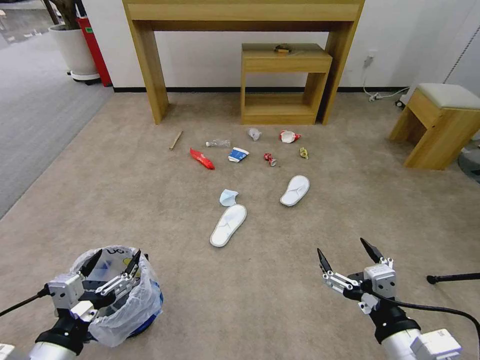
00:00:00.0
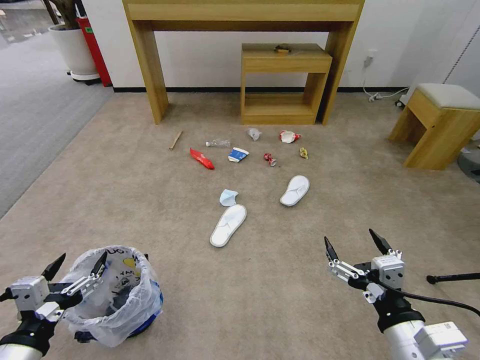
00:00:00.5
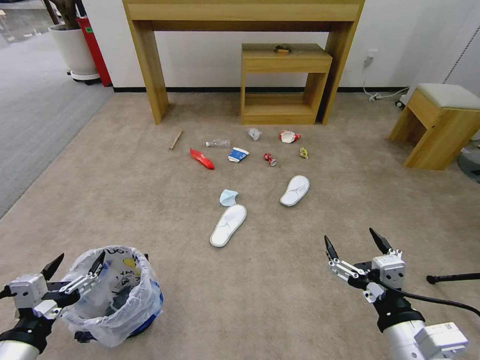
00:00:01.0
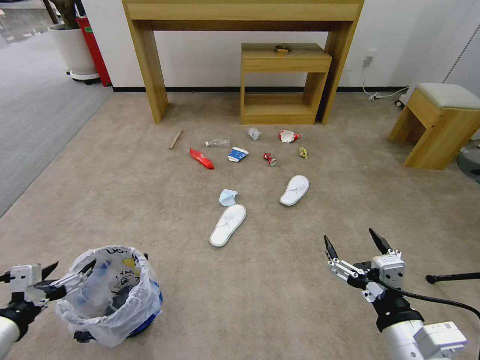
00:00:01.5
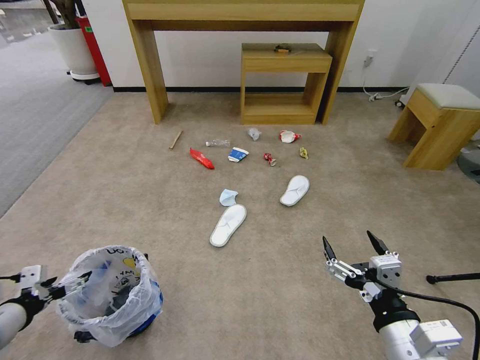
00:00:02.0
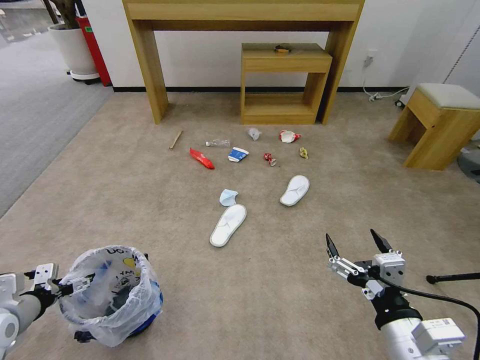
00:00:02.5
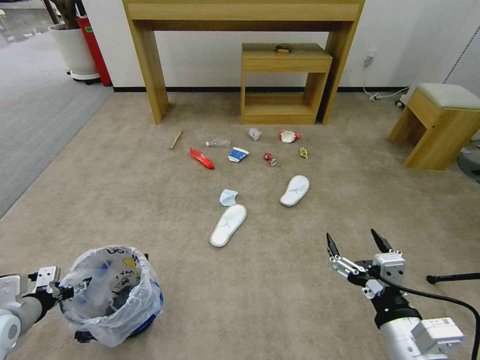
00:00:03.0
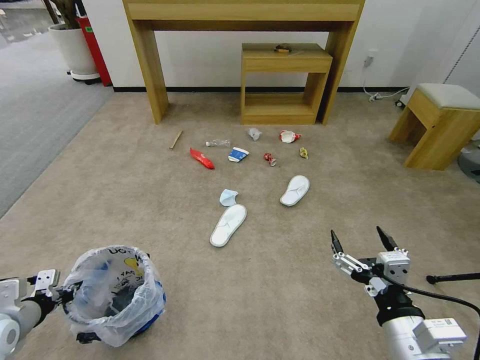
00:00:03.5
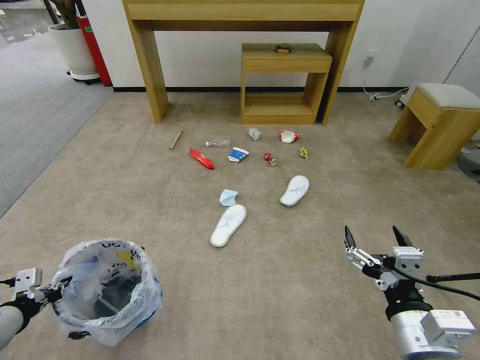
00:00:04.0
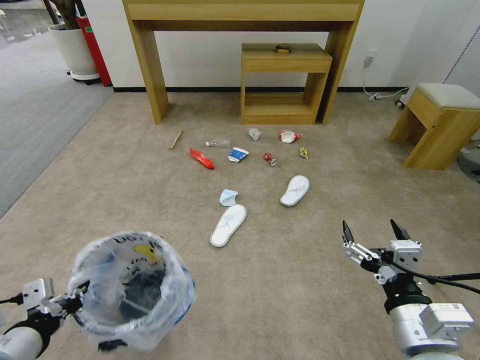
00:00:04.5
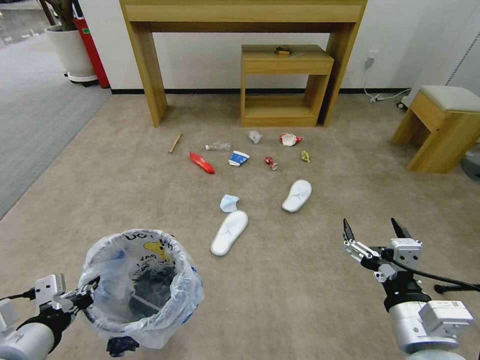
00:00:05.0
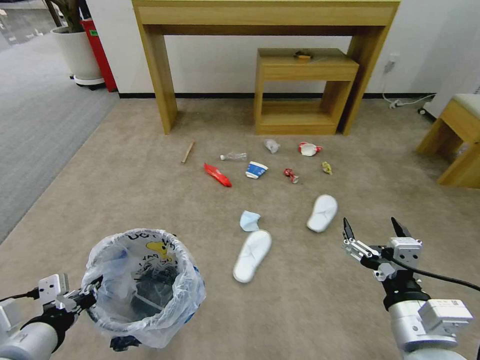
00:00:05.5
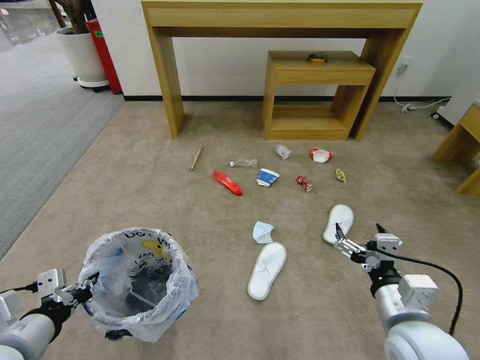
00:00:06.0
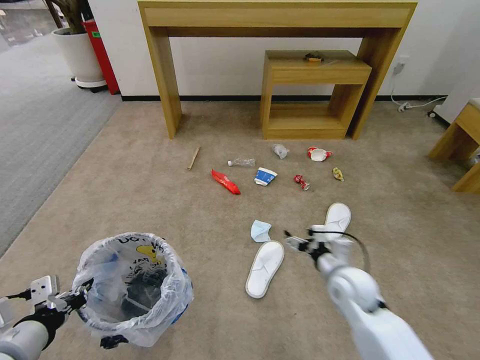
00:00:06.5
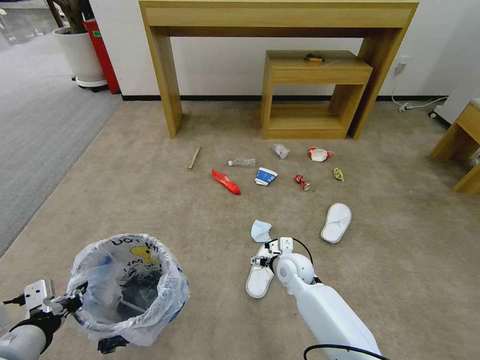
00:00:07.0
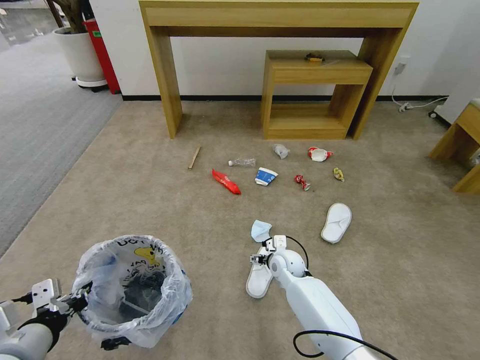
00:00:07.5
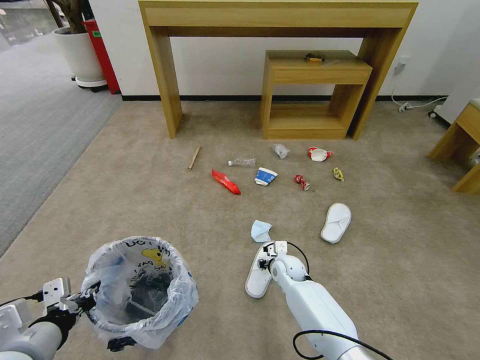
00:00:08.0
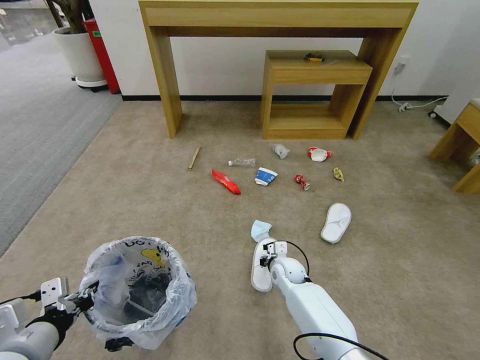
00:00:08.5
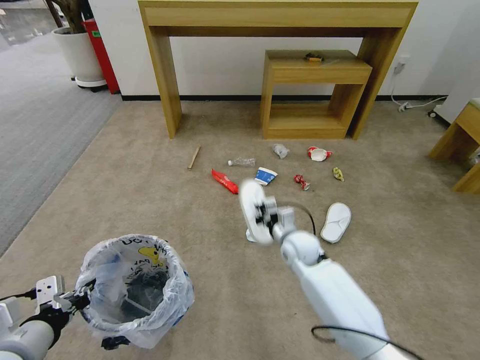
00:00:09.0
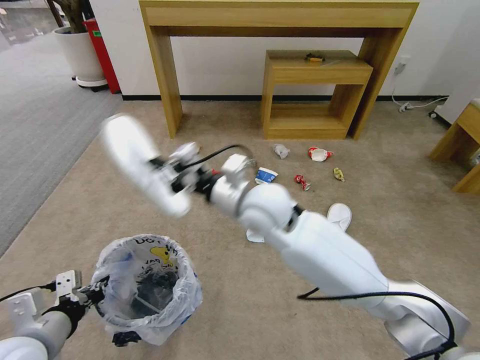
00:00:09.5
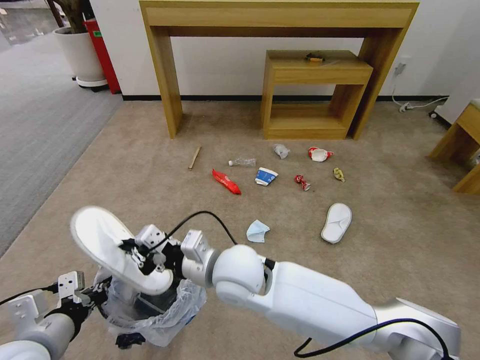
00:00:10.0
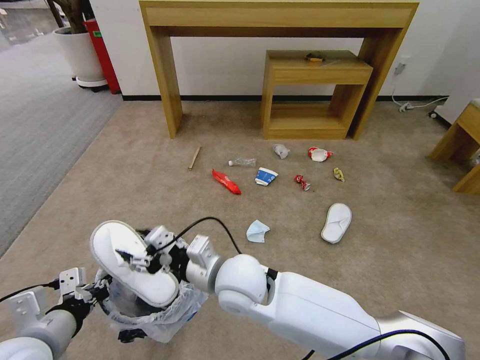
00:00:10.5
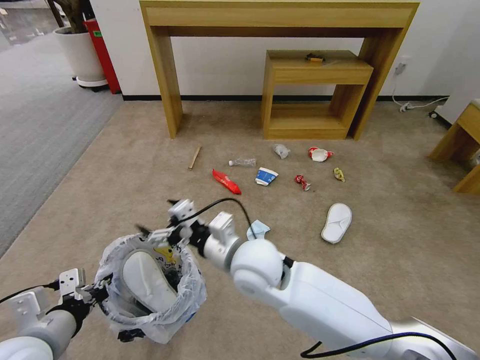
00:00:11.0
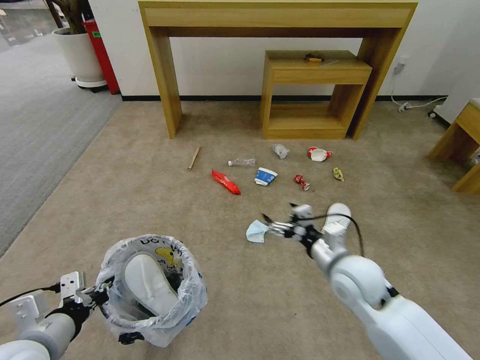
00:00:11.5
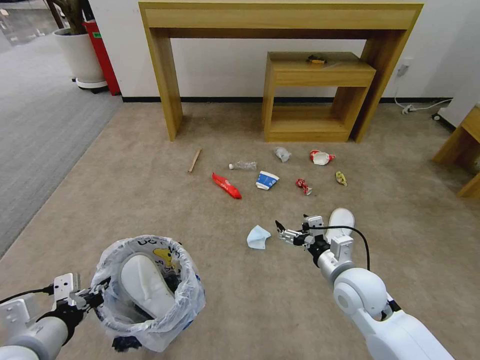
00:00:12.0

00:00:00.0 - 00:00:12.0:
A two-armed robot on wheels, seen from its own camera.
Task of the whole recording: Pick up the trash bin and place the garbage on the floor into it.
00:00:02.0 - 00:00:04.0: The left gripper closes its fingers.
00:00:04.0 - 00:00:06.0: The left gripper goes roughly 10 cm to the right. Meanwhile the right gripper travels forward by about 5 cm.
00:00:06.0 - 00:00:08.0: The right gripper goes some 35 cm forward, downward and to the left, and closes.
00:00:08.0 - 00:00:10.0: The right gripper is displaced upward, to the left and backward by about 30 cm, and closes its fingers.
00:00:10.0 - 00:00:12.0: The right gripper travels to the right by about 25 cm, and opens up.

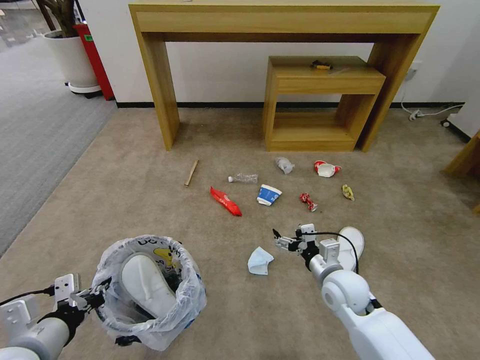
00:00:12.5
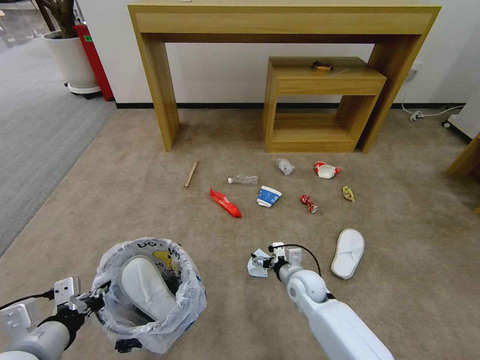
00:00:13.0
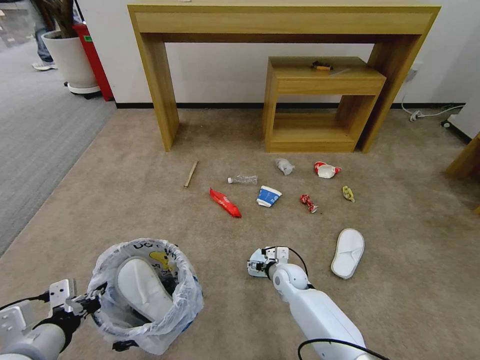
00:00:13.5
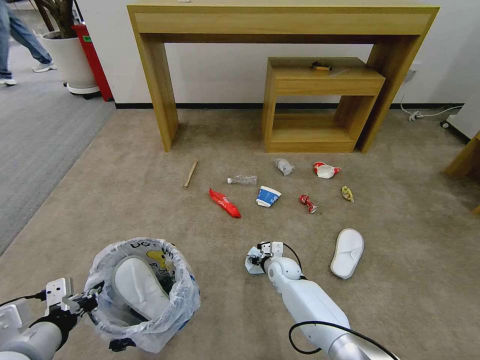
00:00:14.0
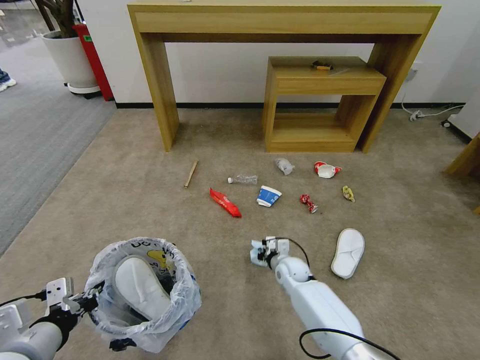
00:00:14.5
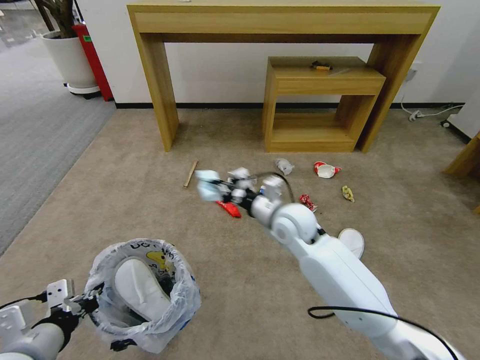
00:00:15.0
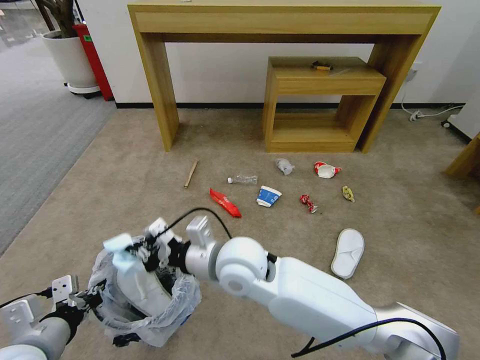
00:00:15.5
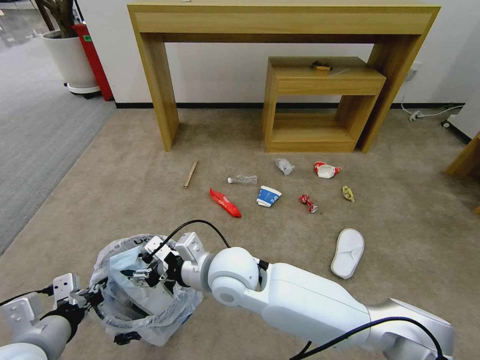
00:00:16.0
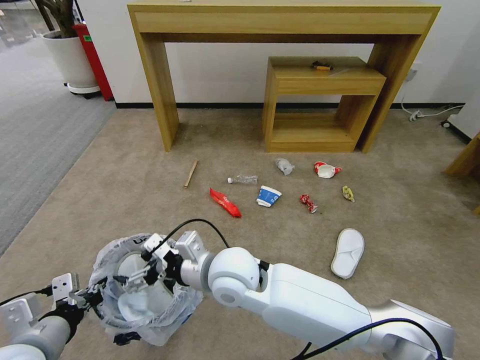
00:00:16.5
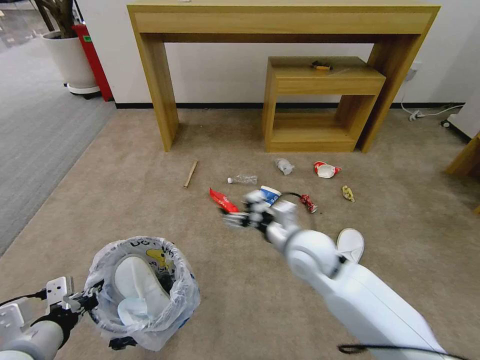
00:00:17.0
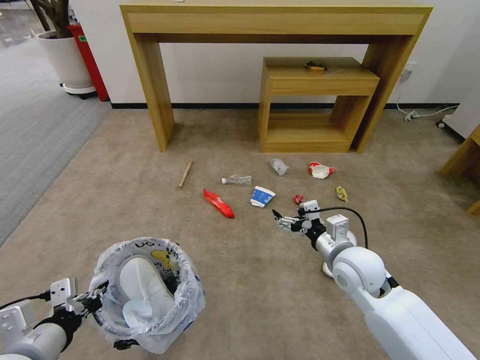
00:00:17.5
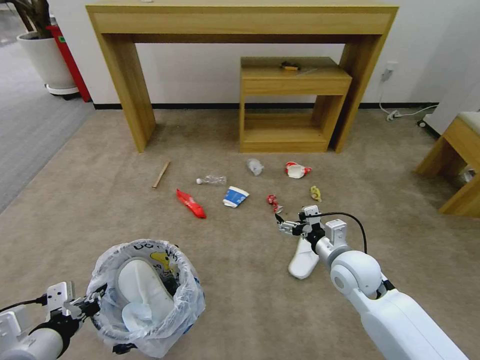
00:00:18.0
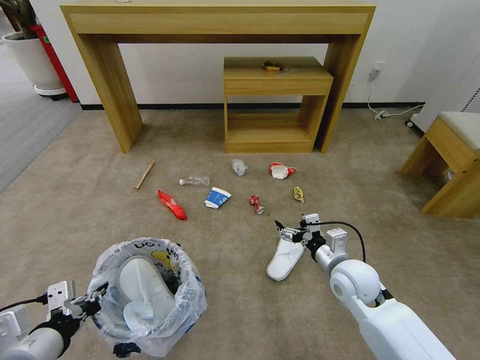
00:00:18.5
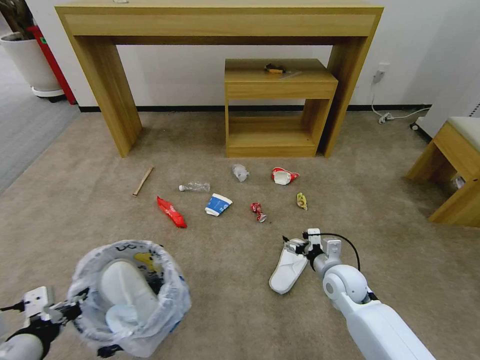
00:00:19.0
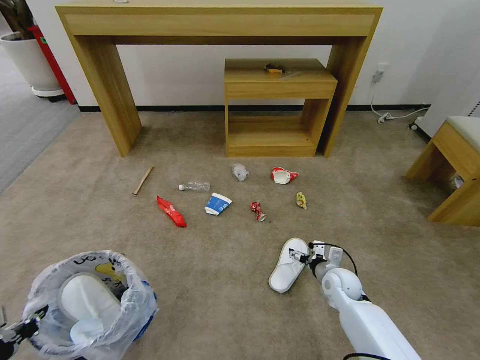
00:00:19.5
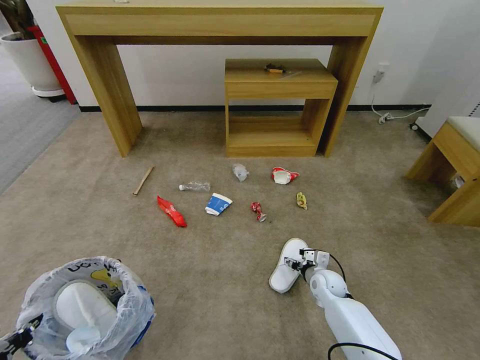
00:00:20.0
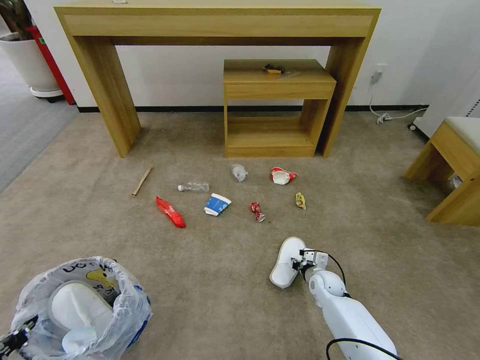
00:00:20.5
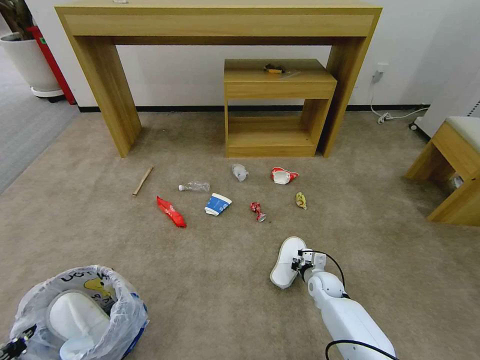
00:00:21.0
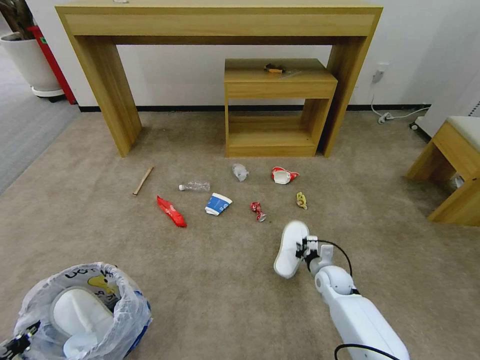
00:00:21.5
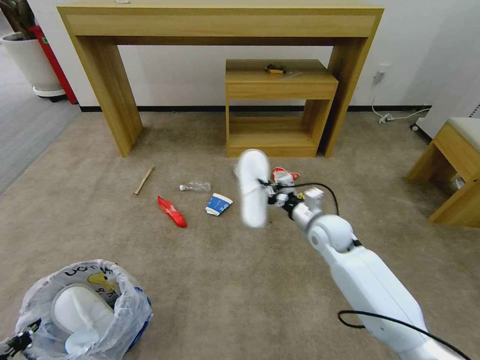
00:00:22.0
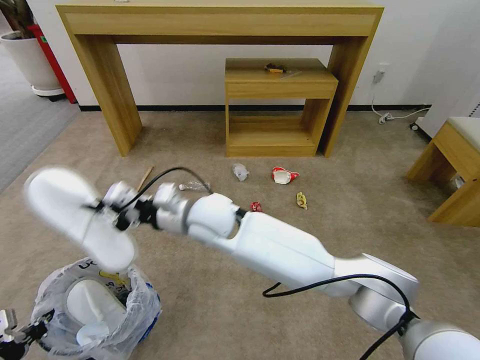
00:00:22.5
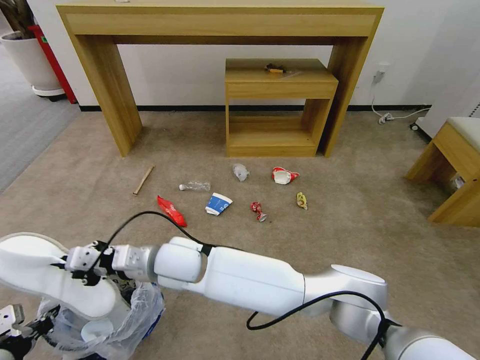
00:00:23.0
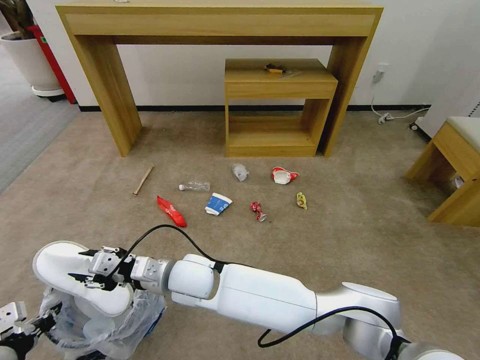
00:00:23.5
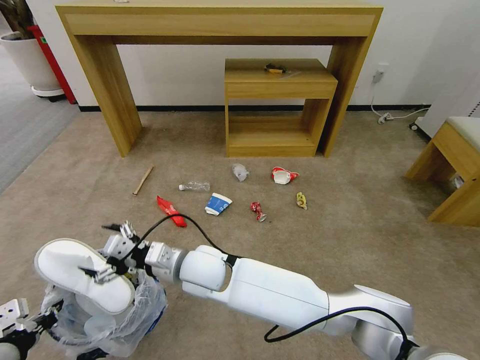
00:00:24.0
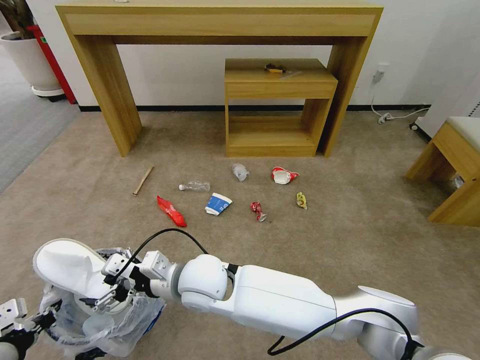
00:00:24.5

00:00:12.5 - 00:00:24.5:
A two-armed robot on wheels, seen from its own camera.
Task of the whole recording: Pick up the trash bin and place the garbage on the floor into it.
00:00:12.5 - 00:00:14.5: The right gripper moves downward, forward and to the left, roughly 20 cm, and closes up.
00:00:14.5 - 00:00:16.5: The right gripper shifts approximately 35 cm upward, to the left and backward, and opens its fingers.
00:00:16.5 - 00:00:18.5: The right gripper goes approximately 25 cm to the right.
00:00:18.5 - 00:00:20.5: The left gripper shifts approximately 10 cm to the left, while the right gripper is displaced downward by approximately 20 cm, and closes its fingers.
00:00:20.5 - 00:00:22.5: The right gripper heads upward and to the left, covering approximately 50 cm.
00:00:22.5 - 00:00:24.5: The right gripper is displaced backward and downward by roughly 15 cm, and opens.

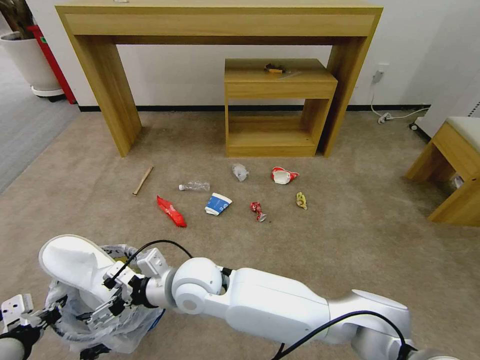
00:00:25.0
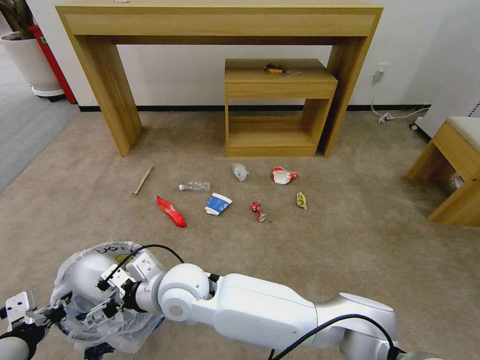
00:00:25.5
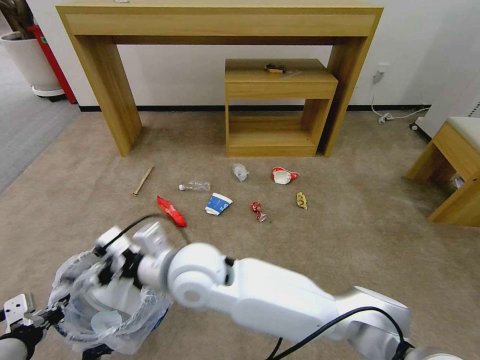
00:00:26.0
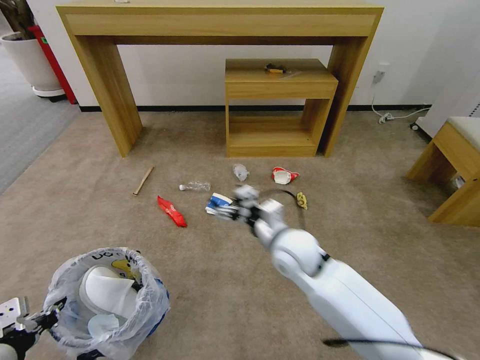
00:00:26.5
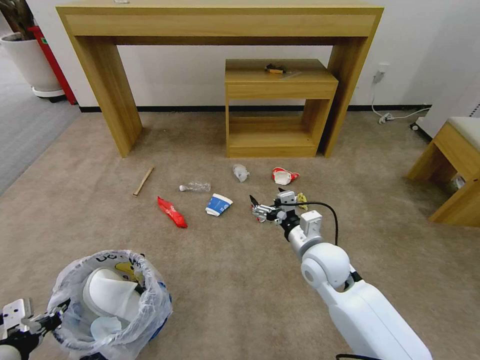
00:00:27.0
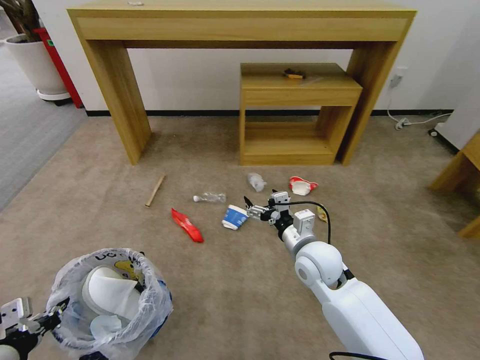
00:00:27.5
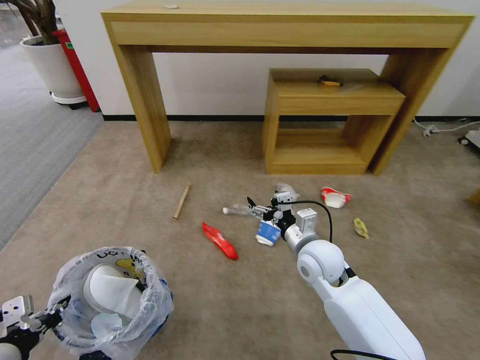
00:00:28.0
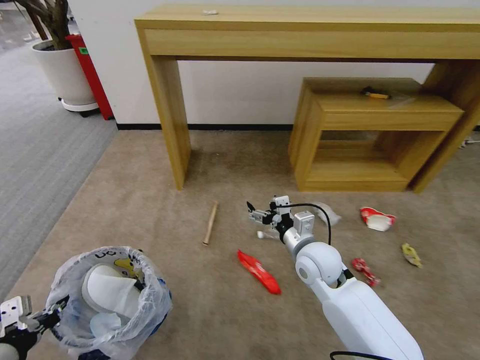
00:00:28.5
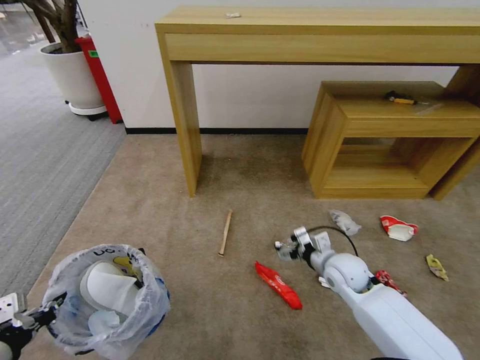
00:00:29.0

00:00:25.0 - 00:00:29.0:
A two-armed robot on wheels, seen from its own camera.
Task of the whole recording: Pick up the trash bin and place the garbage on the floor into it.
00:00:25.0 - 00:00:27.0: The right gripper goes about 25 cm to the right.
00:00:27.0 - 00:00:29.0: The right gripper travels to the right and downward by some 10 cm.
